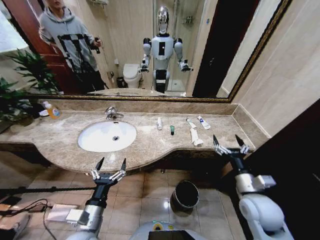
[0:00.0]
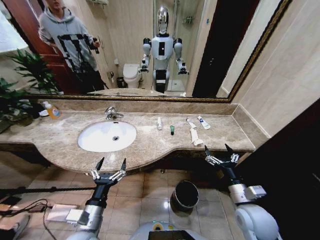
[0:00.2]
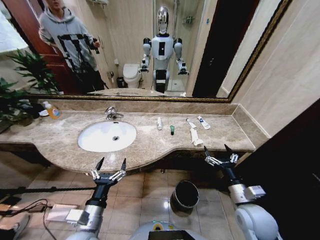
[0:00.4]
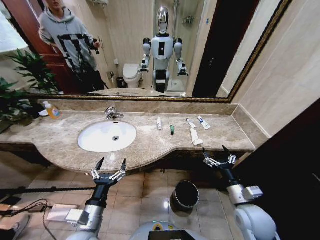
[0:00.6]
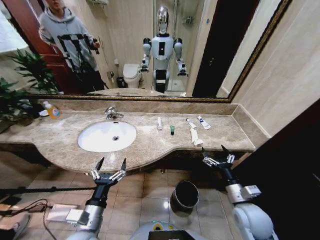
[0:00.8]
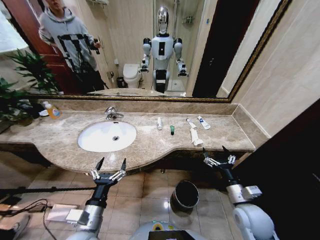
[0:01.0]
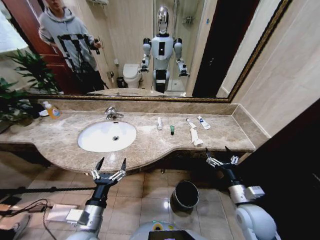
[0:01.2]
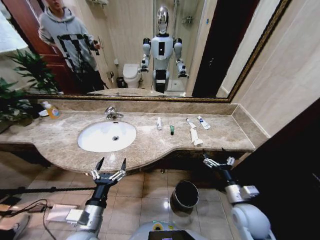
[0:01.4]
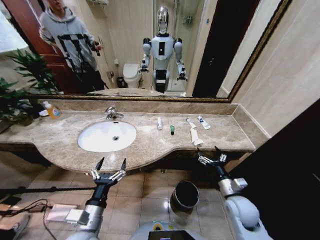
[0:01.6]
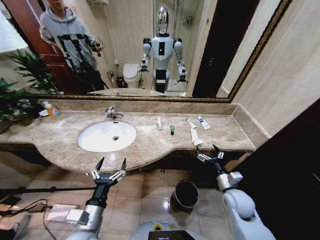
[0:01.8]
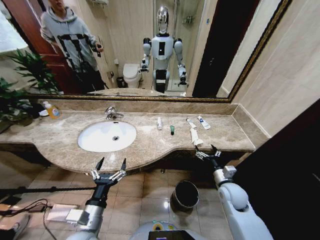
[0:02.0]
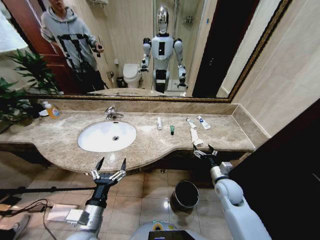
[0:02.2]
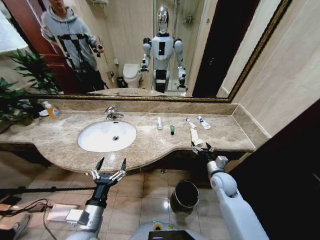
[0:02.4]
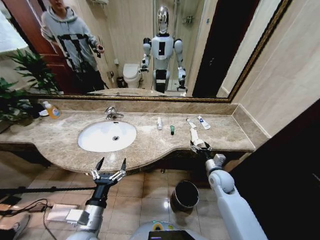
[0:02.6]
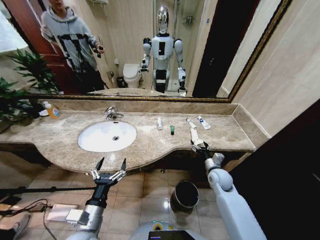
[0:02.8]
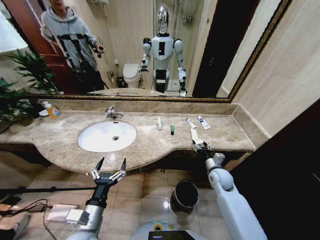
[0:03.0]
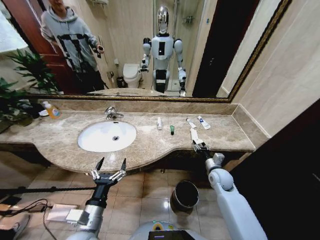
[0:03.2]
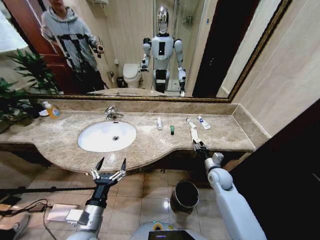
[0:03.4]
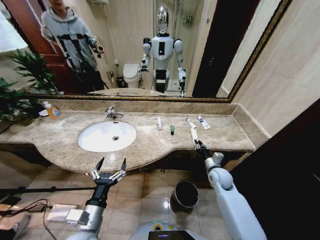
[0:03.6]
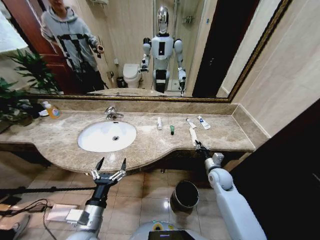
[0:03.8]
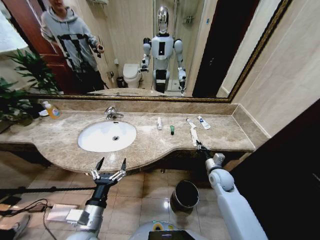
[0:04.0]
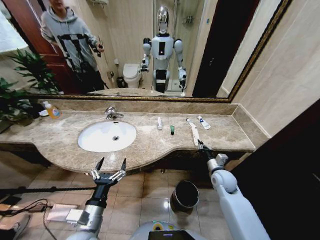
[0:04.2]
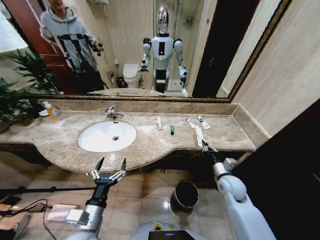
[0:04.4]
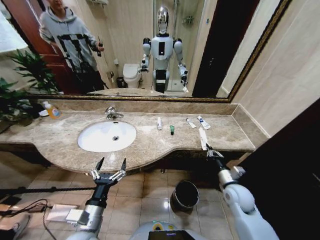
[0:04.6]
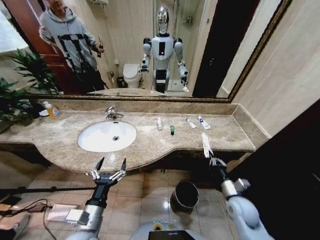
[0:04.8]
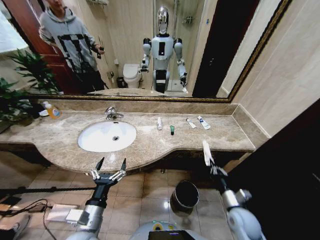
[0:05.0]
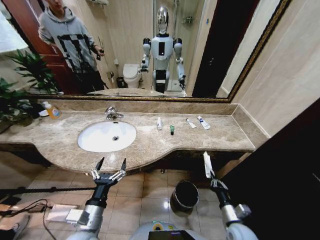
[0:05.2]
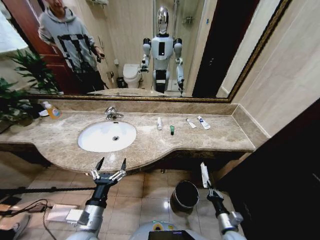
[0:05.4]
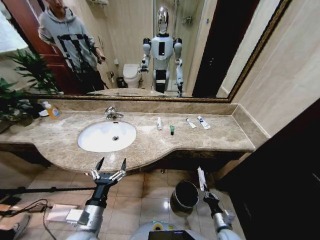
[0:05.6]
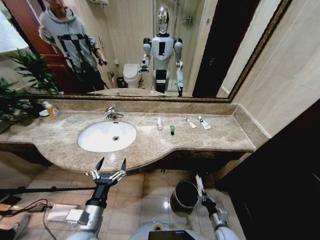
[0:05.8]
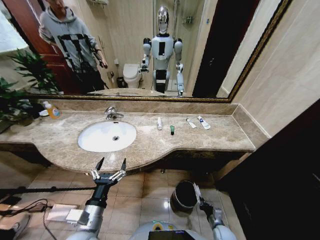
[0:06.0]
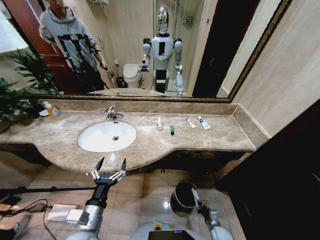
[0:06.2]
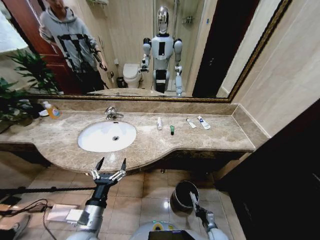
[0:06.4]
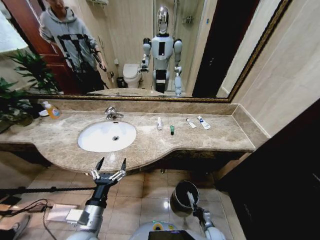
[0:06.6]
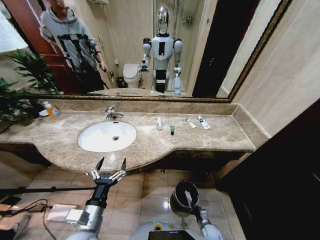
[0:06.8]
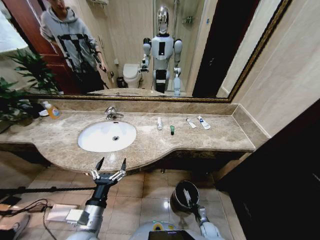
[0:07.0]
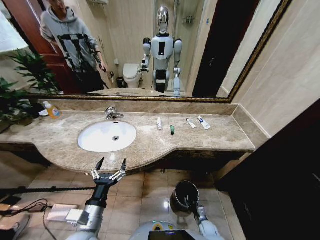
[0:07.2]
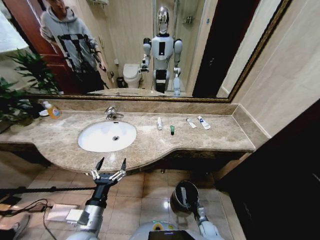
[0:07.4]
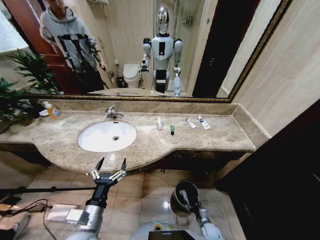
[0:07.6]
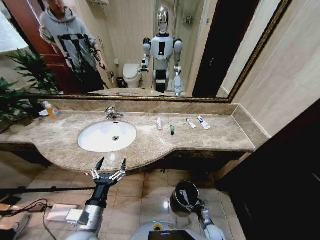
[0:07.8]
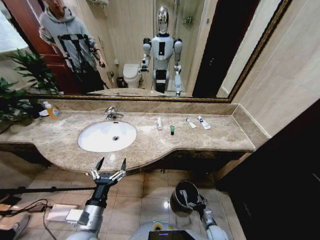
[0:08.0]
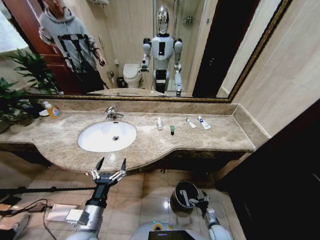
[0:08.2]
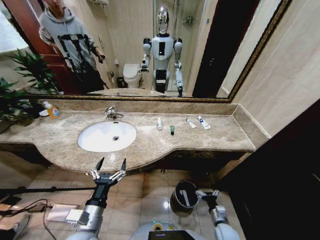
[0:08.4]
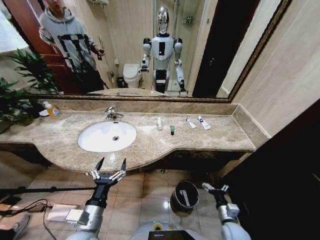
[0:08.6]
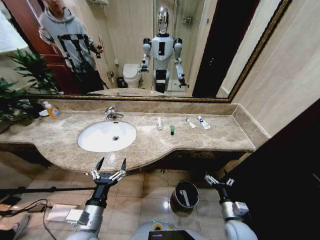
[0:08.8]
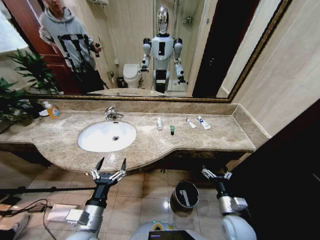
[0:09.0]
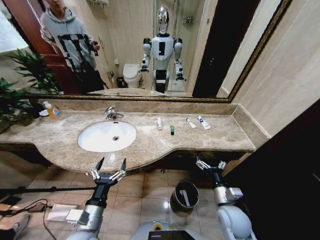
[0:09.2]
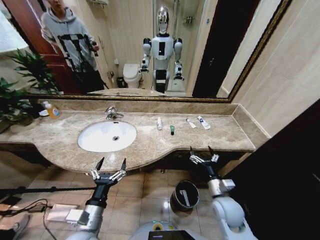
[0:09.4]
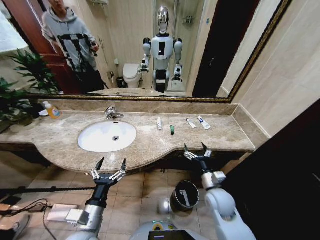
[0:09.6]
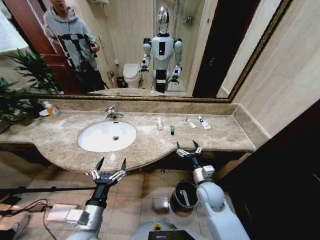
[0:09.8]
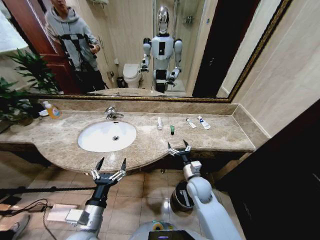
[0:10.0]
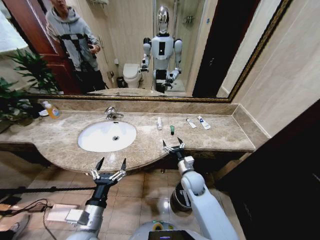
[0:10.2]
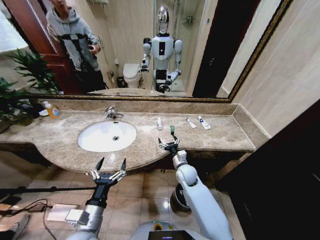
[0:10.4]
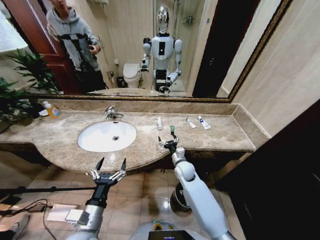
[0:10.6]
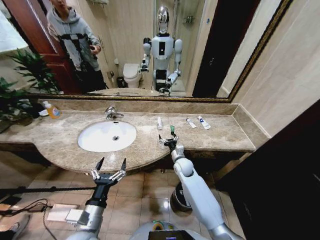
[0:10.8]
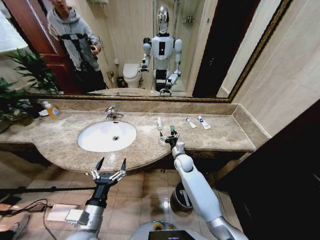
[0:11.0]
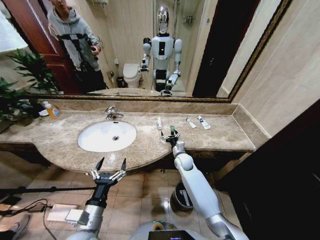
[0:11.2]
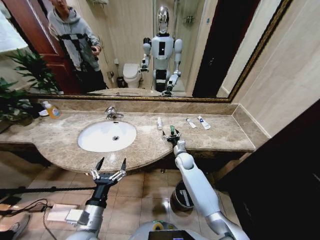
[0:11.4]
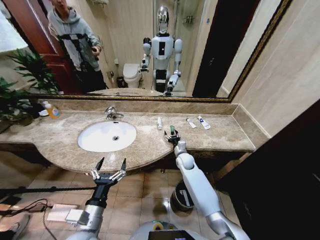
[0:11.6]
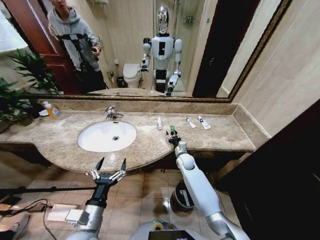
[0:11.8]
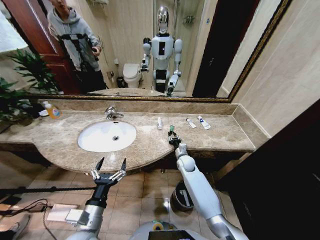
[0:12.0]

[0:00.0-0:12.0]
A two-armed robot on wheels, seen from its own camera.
Task of the whole recording: Pick up the trash from the sink and place it in the trash bin.
0:01.6 to 0:03.0: The right gripper shifts some 15 cm forward.
0:03.0 to 0:04.4: The right gripper moves some 5 cm, and closes.
0:04.4 to 0:06.0: The right gripper moves downward and backward, some 30 cm.
0:06.0 to 0:07.6: The right gripper travels downward by some 5 cm, and opens up.
0:07.6 to 0:09.0: The right gripper heads upward, covering approximately 30 cm.
0:09.0 to 0:10.4: The right gripper moves forward and to the left, approximately 25 cm.
0:10.4 to 0:12.0: The right gripper shifts approximately 10 cm forward, and closes up.

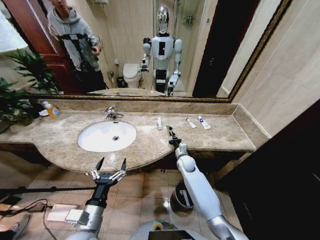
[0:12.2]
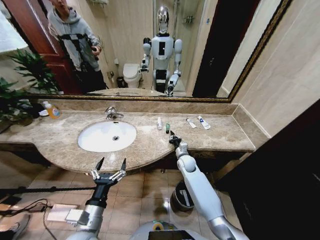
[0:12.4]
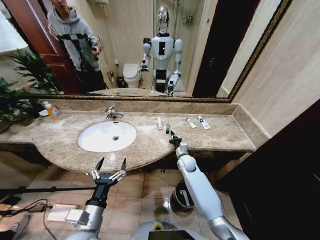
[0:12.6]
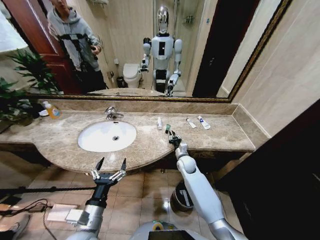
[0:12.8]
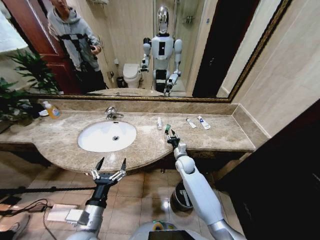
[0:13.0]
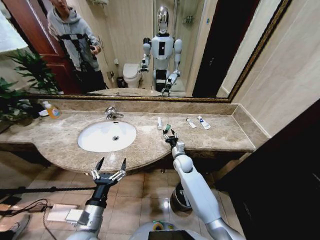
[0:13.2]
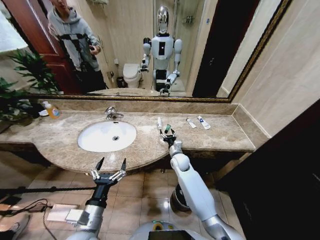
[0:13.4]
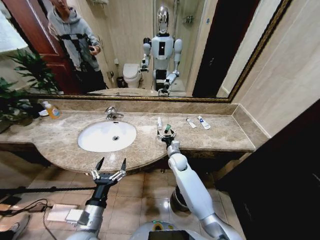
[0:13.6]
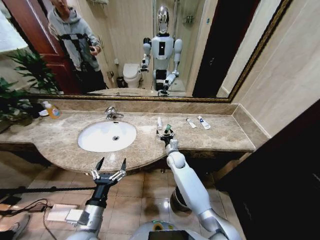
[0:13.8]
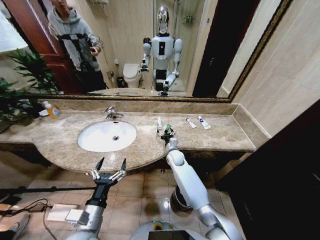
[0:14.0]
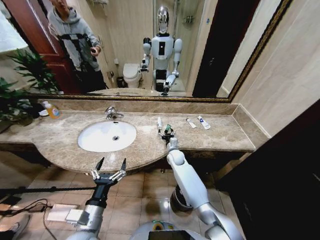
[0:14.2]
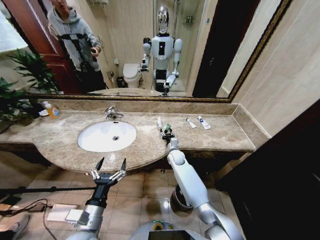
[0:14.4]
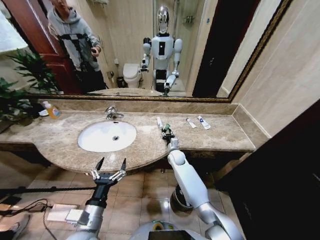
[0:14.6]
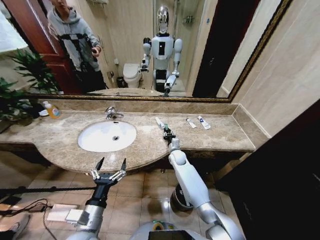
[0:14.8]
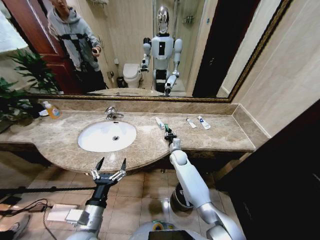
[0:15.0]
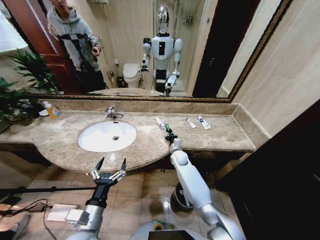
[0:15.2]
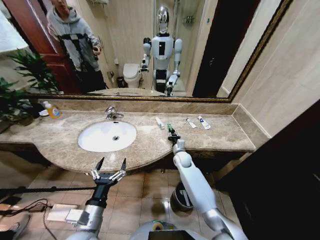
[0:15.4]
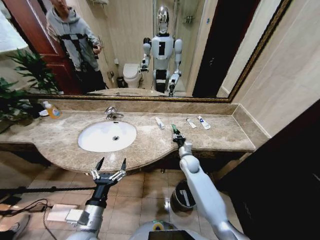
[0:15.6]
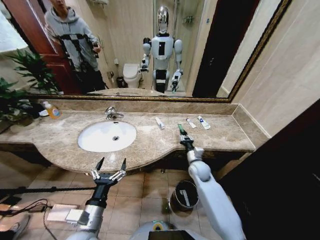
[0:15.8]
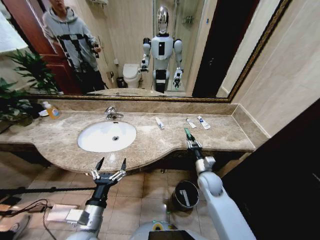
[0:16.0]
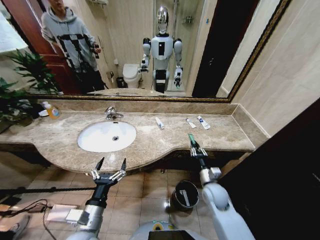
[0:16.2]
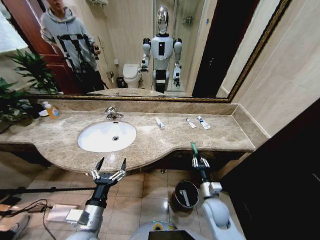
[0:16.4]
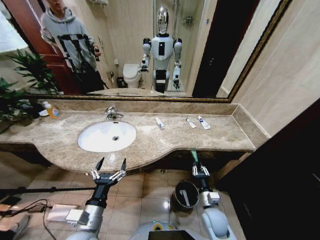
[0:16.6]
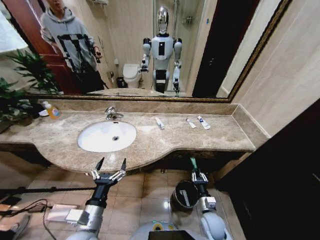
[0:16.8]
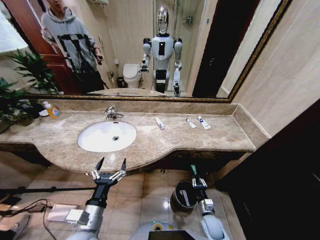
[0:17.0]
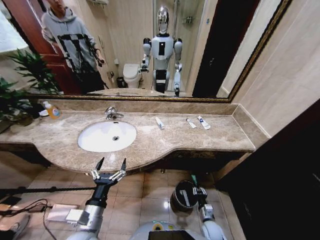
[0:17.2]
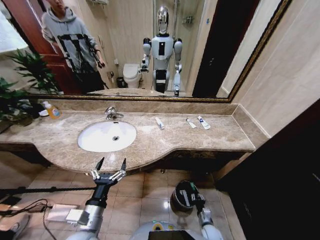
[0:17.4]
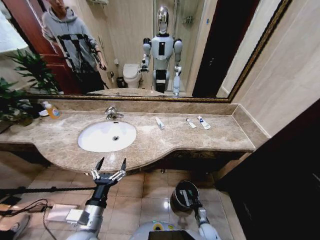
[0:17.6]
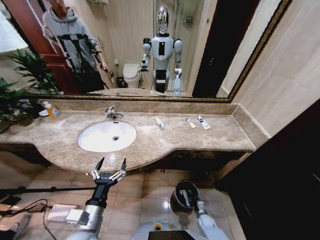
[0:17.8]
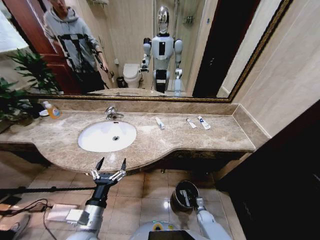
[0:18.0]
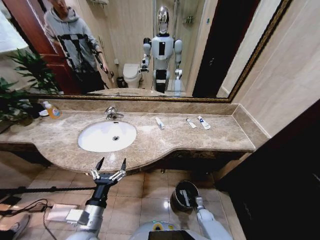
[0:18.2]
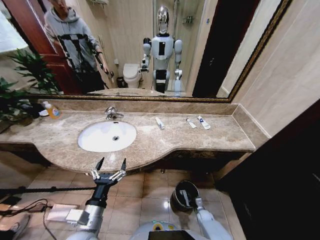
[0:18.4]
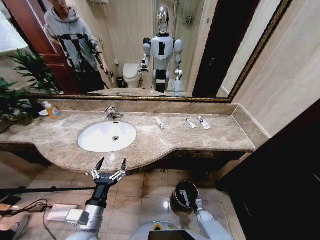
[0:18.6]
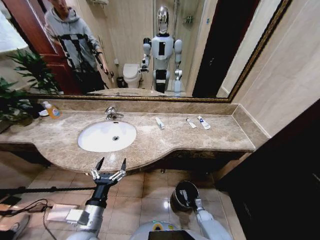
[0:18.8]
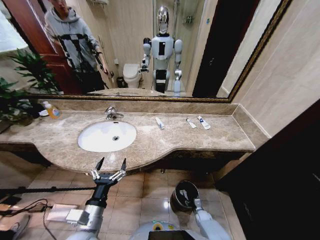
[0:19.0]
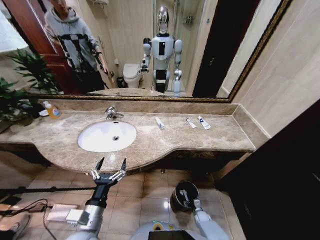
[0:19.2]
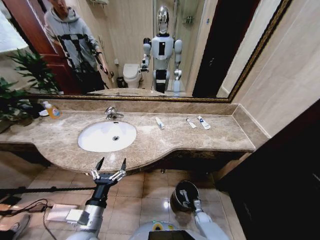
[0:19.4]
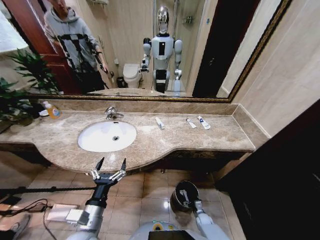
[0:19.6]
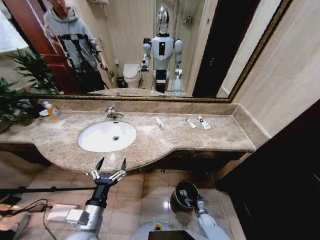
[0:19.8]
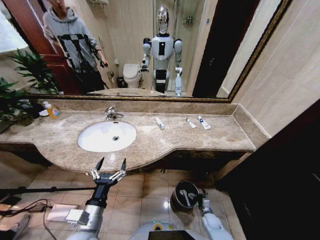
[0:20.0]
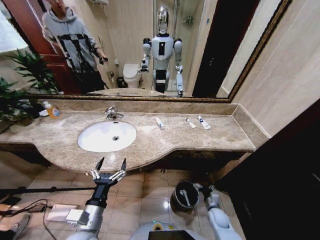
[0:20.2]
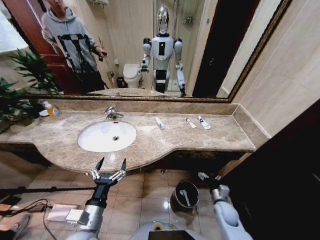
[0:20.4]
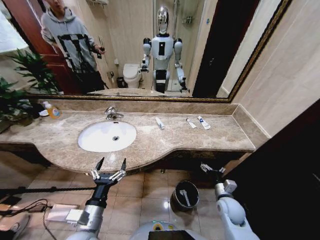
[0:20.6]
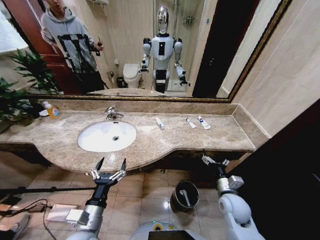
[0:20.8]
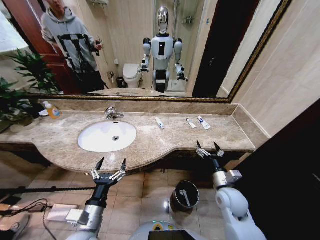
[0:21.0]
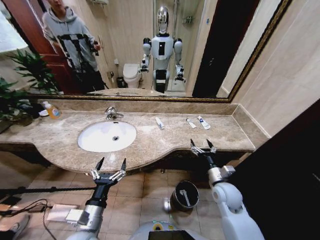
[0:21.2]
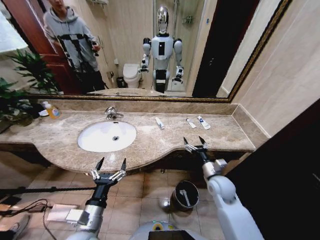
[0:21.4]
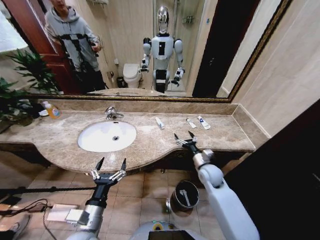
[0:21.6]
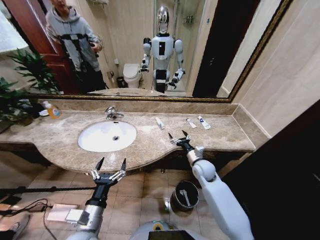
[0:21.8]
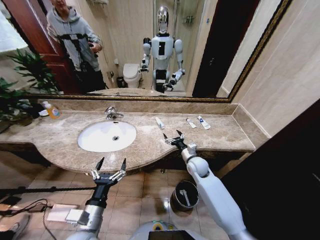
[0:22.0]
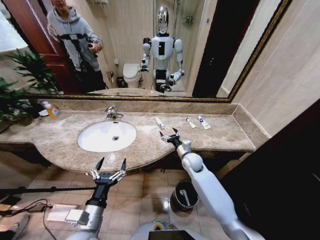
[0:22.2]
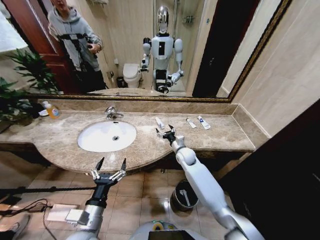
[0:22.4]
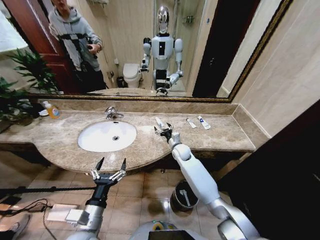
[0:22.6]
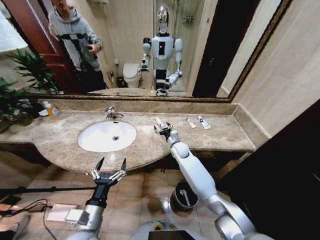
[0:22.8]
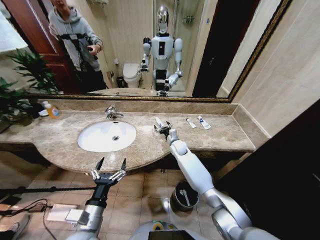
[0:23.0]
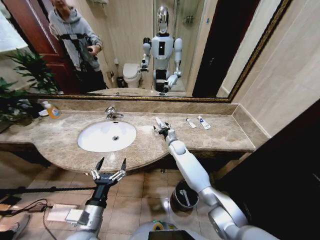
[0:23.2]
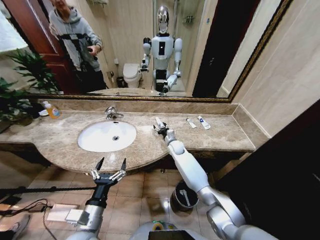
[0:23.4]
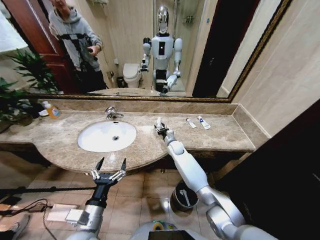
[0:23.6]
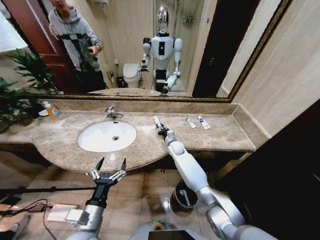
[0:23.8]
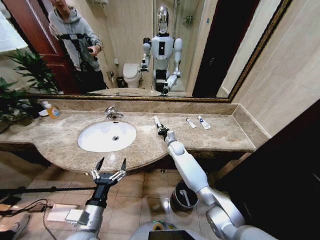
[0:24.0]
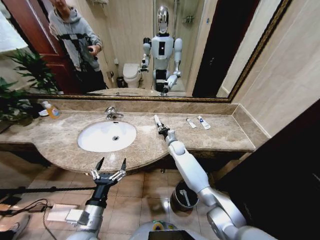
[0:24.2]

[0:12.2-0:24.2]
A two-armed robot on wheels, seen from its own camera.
Task of the whole recording: Pick up the trash from the sink and place it in the trash bin.
0:12.2 to 0:13.8: The right gripper is displaced to the left by some 5 cm, and opens.
0:13.8 to 0:15.2: The right gripper closes its fingers.
0:15.2 to 0:16.6: The right gripper is displaced backward by approximately 30 cm.
0:16.6 to 0:18.2: The right gripper shifts some 25 cm downward.
0:19.8 to 0:21.2: The right gripper heads upward, covering about 35 cm.
0:21.2 to 0:22.6: The right gripper is displaced forward and to the left by some 25 cm.
0:22.6 to 0:24.2: The right gripper ends up some 5 cm from where it was, and closes.
